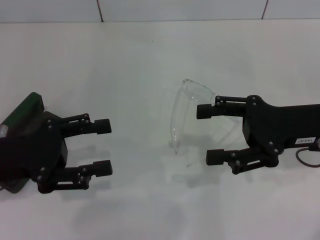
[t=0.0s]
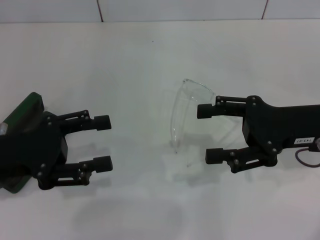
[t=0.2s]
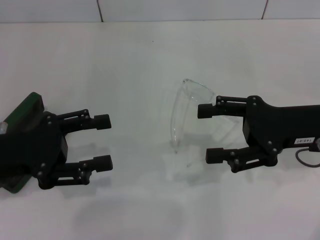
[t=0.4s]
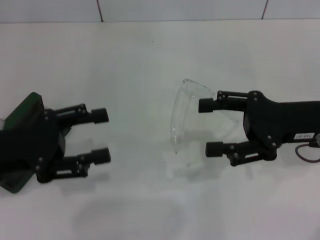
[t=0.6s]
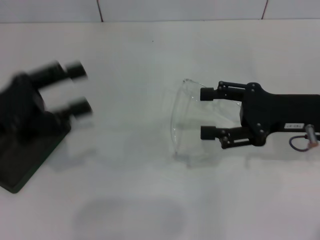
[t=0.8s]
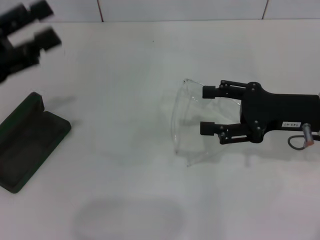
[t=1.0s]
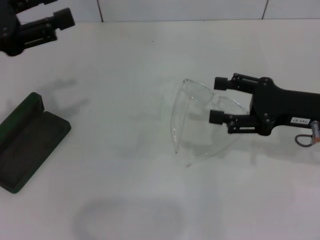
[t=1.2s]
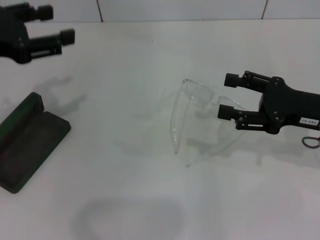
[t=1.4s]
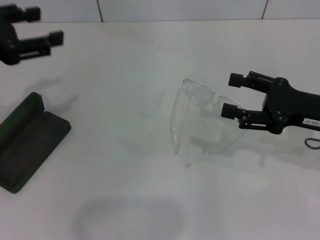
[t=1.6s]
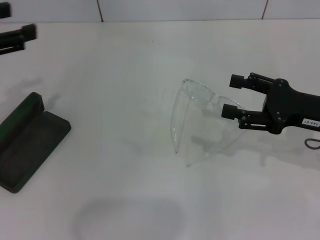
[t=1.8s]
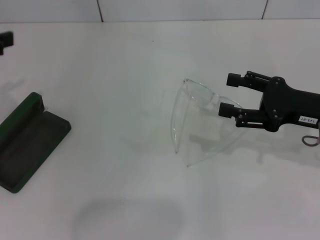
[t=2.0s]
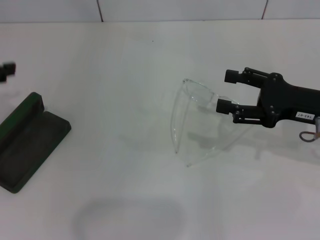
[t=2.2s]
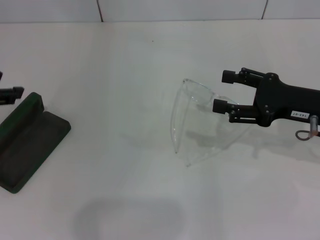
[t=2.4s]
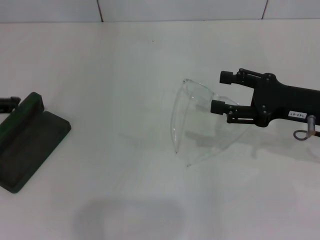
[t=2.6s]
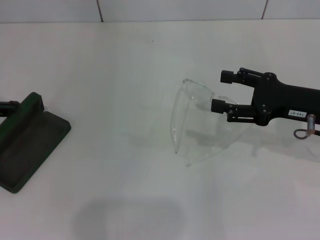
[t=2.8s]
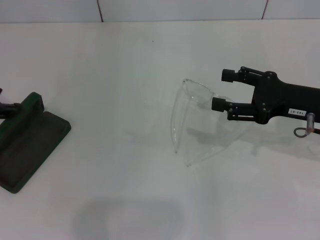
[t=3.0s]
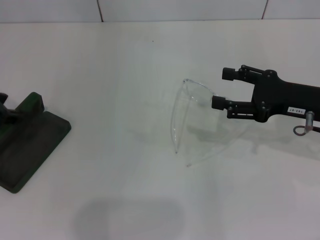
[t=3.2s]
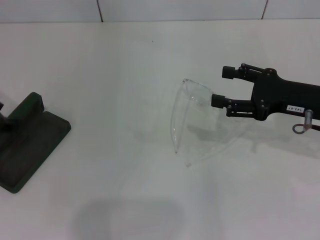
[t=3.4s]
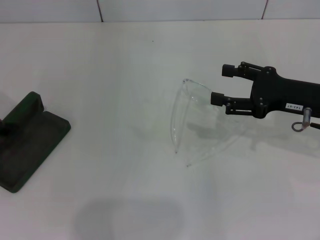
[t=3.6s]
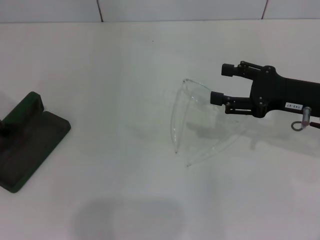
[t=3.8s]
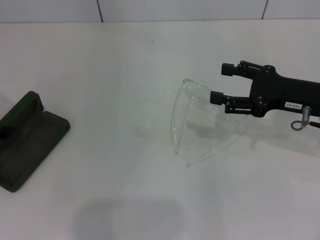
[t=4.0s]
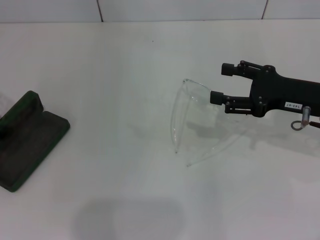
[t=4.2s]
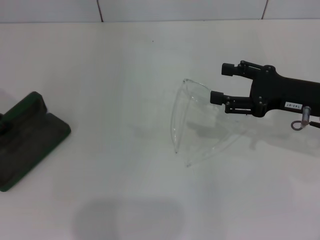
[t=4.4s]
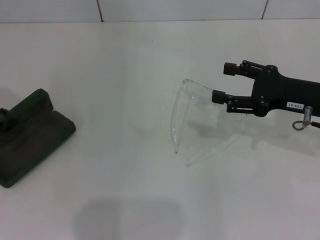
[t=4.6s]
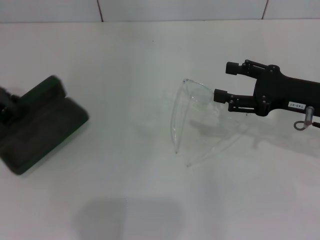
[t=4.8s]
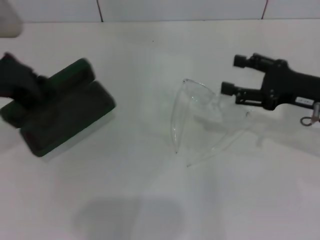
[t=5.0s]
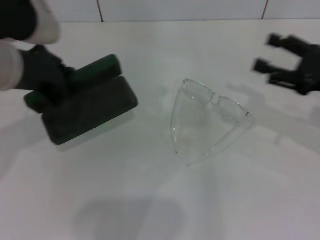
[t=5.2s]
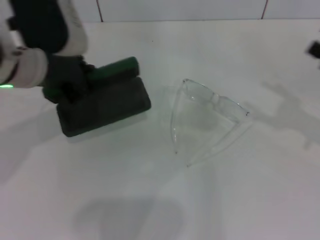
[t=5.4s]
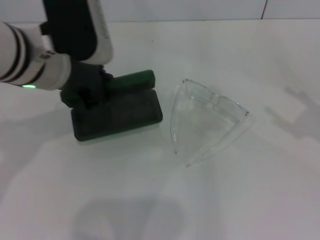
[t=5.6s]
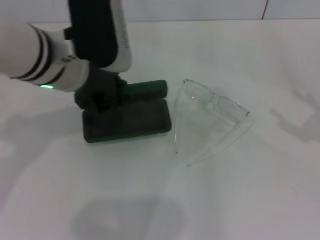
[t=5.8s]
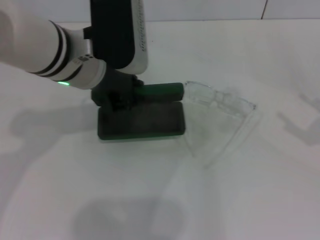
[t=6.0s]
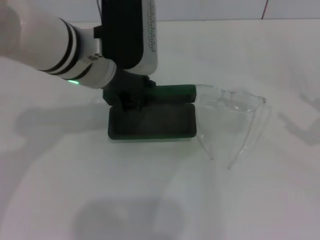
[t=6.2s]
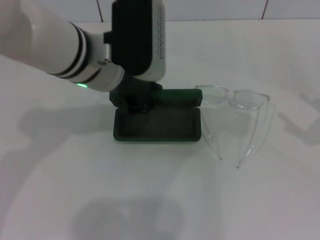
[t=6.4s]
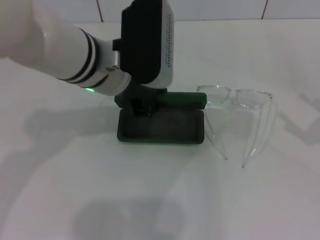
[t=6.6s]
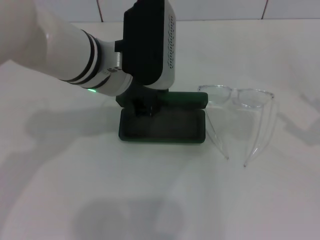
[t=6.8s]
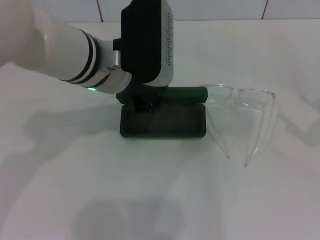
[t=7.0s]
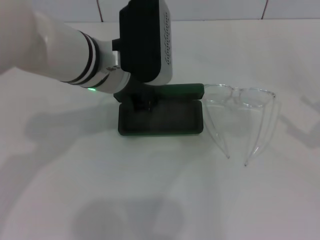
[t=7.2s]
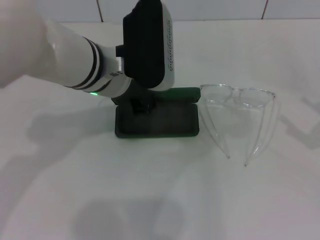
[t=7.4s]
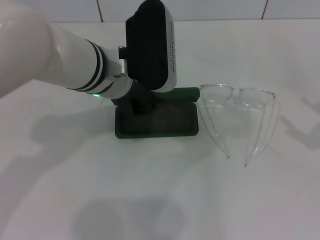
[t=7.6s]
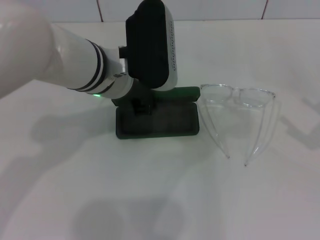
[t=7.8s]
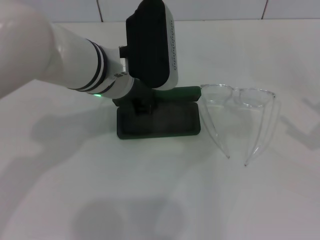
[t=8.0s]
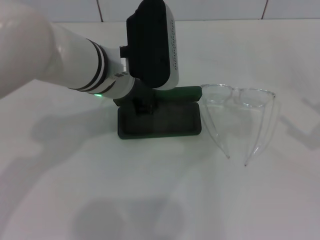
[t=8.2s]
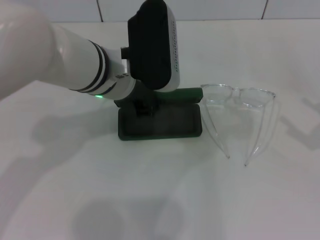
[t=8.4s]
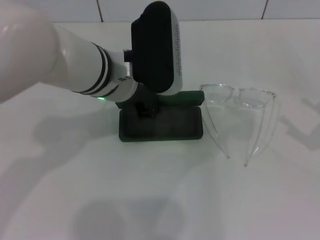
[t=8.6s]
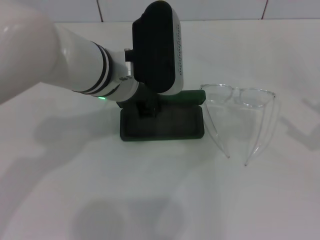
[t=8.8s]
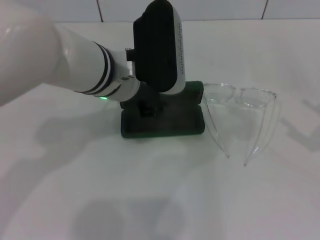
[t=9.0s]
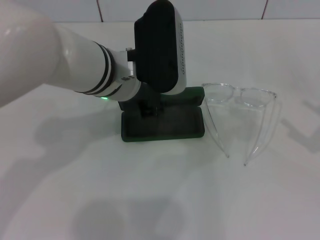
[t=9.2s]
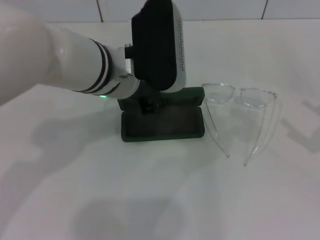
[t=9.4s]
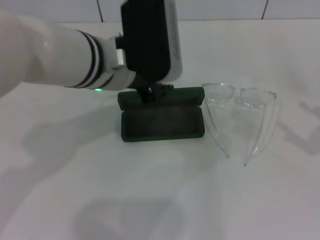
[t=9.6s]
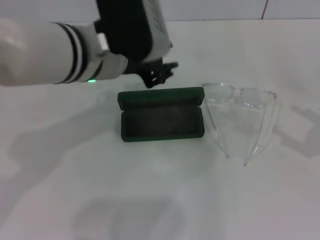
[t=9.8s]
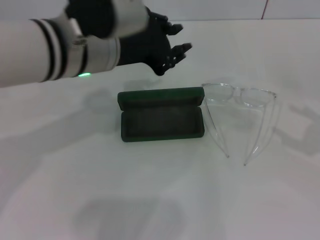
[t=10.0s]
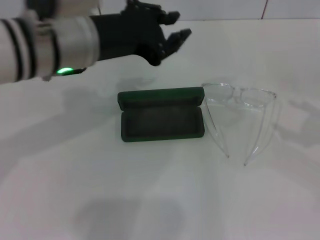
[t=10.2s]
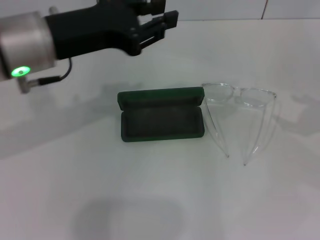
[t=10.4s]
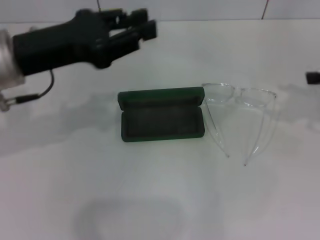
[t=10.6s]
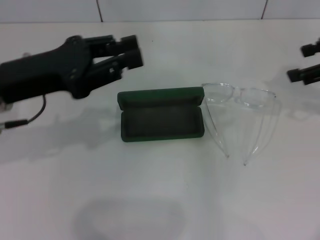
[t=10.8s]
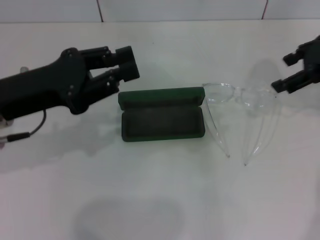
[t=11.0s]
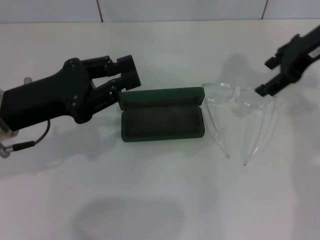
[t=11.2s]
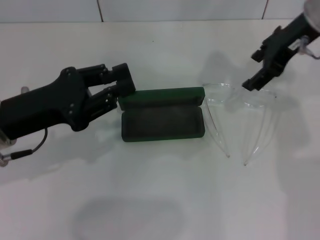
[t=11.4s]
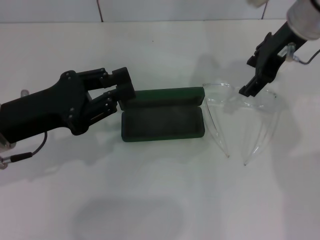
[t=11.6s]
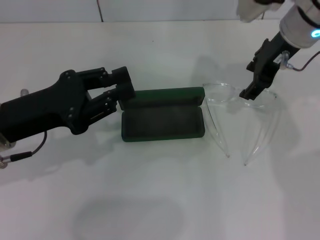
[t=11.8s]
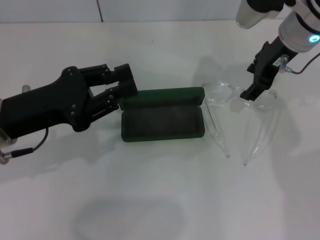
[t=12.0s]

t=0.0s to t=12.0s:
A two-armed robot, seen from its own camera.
Step, t=0.0s to t=4.2s: Grab the glasses case with your left hand.
Step, t=4.4s to t=9.2s: Place the glasses case in the center of the table with your left hand.
t=0.0s to t=1.6s: The left gripper shifts about 10 cm upward and forward.
t=3.0s to t=4.4s: The grippers move only a little.
t=4.4s to t=6.0s: The right gripper heads to the right and backward, covering approximately 15 cm; the left gripper goes about 15 cm to the right.
t=6.0s to t=7.6s: The grippers make only small movements.
t=7.6s to t=9.0s: Both grippers stay put.
t=9.0s to t=10.4s: The right gripper moves forward and upward, some 10 cm. Meanwhile the left gripper shifts about 10 cm to the left.
t=10.4s to t=12.0s: The left gripper is displaced downward and to the left by some 10 cm. The right gripper shifts about 25 cm to the left and forward.

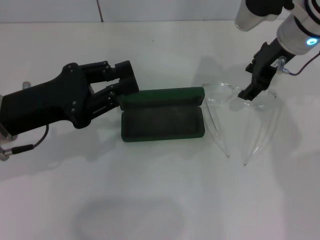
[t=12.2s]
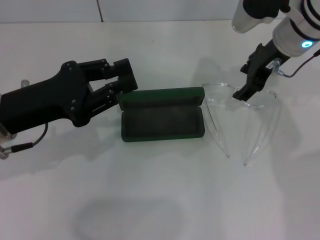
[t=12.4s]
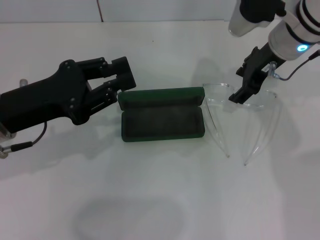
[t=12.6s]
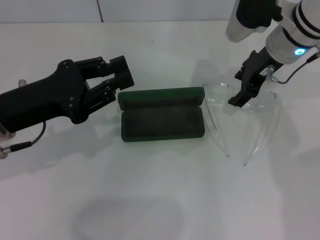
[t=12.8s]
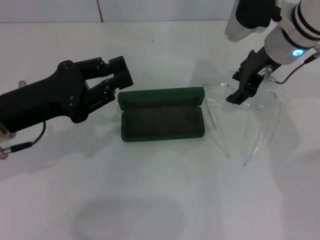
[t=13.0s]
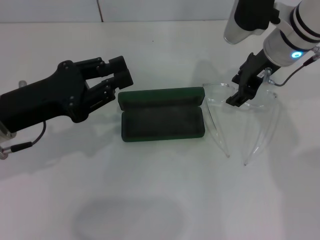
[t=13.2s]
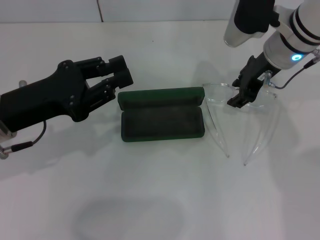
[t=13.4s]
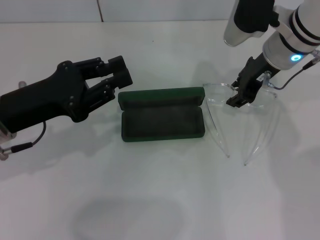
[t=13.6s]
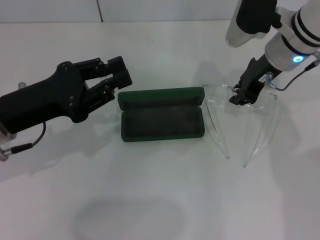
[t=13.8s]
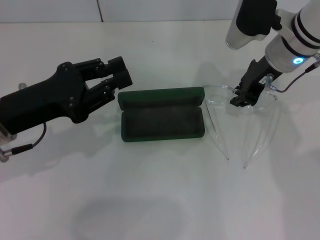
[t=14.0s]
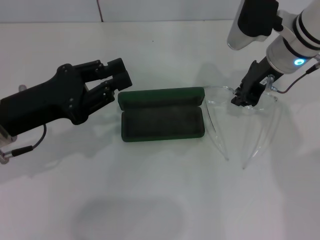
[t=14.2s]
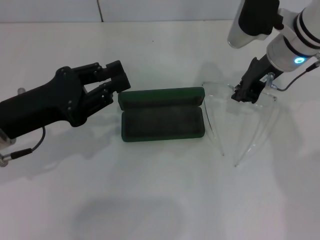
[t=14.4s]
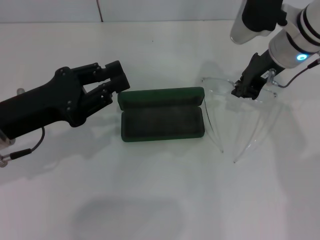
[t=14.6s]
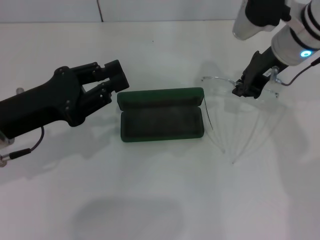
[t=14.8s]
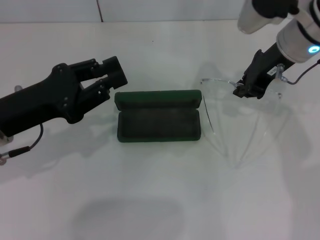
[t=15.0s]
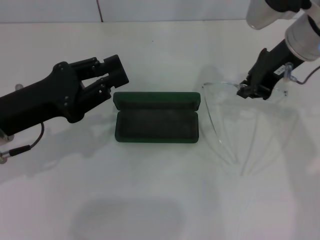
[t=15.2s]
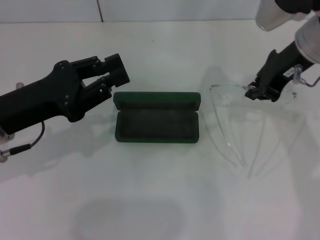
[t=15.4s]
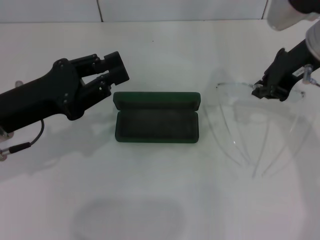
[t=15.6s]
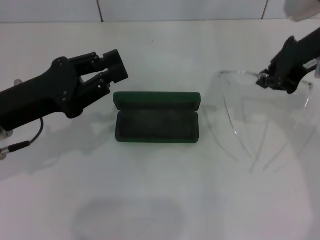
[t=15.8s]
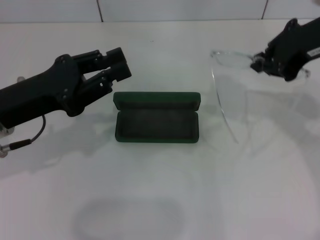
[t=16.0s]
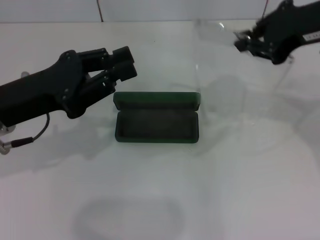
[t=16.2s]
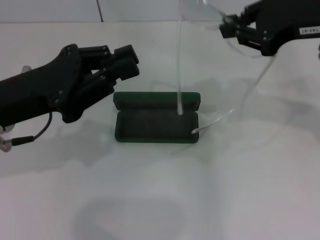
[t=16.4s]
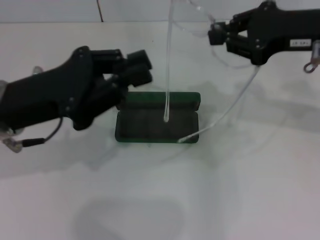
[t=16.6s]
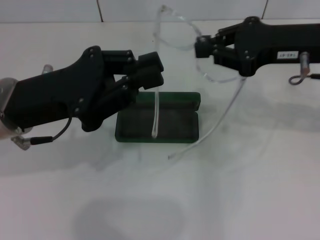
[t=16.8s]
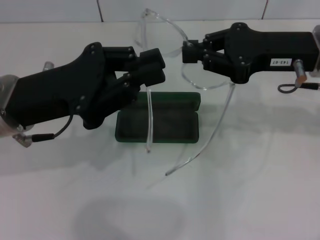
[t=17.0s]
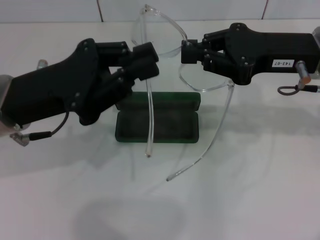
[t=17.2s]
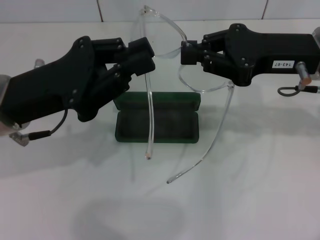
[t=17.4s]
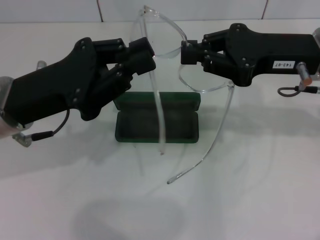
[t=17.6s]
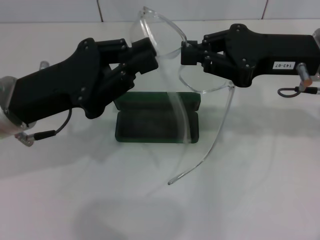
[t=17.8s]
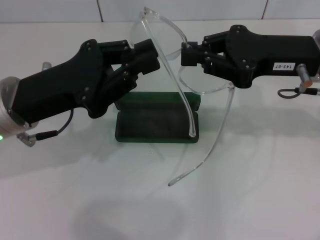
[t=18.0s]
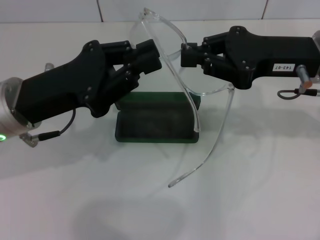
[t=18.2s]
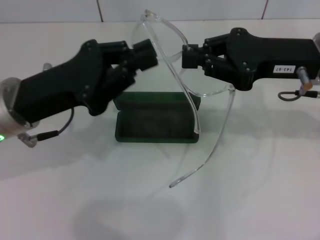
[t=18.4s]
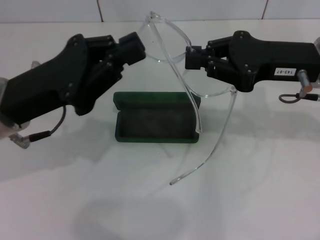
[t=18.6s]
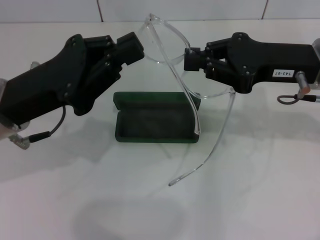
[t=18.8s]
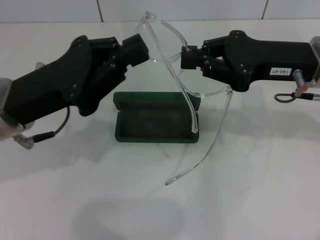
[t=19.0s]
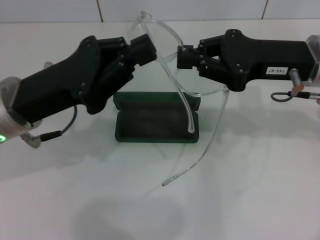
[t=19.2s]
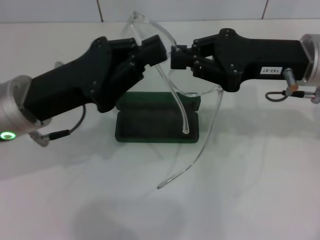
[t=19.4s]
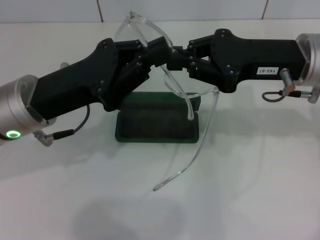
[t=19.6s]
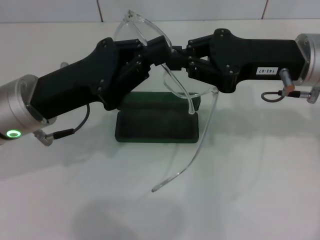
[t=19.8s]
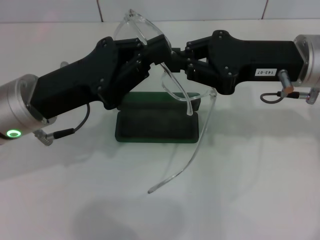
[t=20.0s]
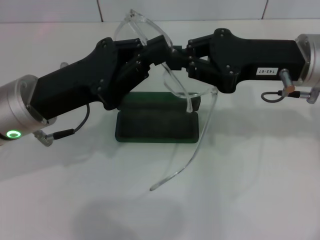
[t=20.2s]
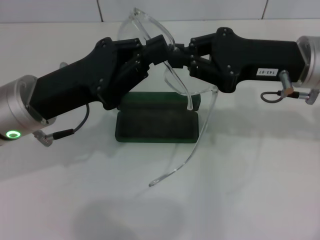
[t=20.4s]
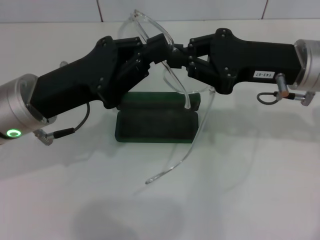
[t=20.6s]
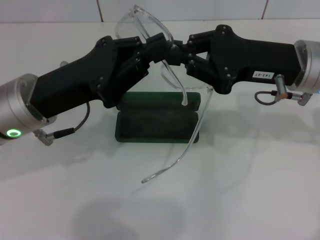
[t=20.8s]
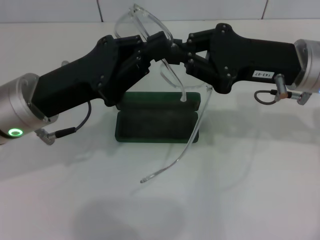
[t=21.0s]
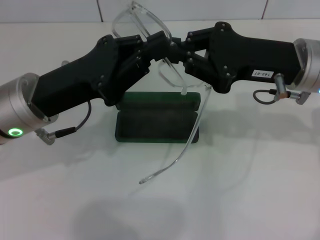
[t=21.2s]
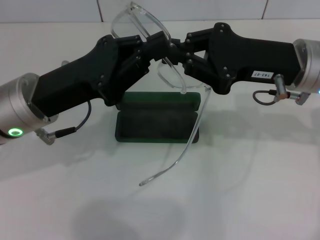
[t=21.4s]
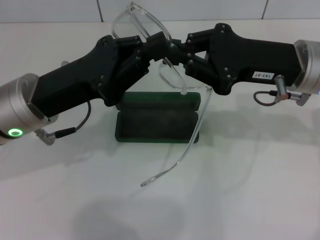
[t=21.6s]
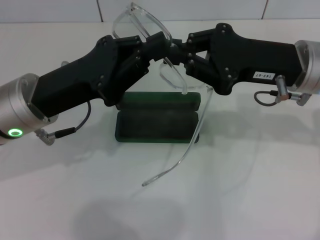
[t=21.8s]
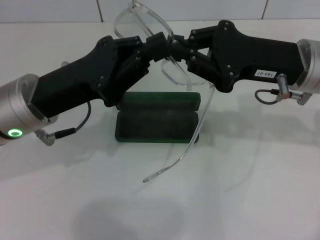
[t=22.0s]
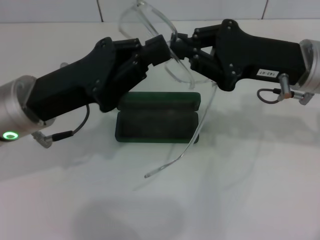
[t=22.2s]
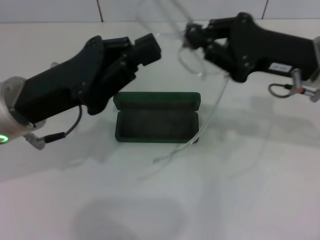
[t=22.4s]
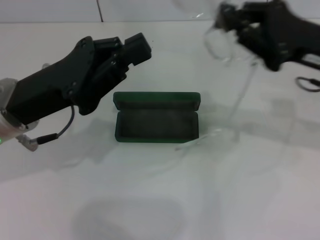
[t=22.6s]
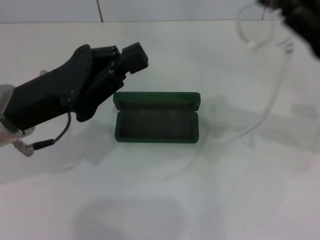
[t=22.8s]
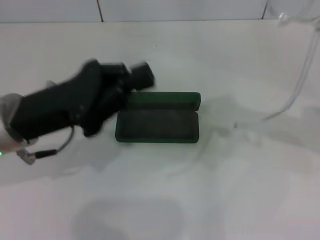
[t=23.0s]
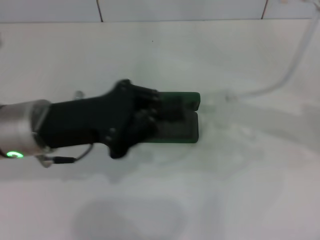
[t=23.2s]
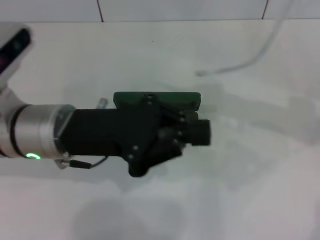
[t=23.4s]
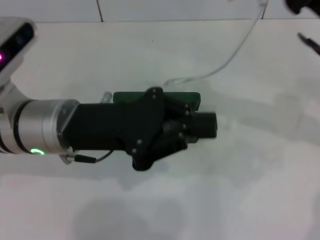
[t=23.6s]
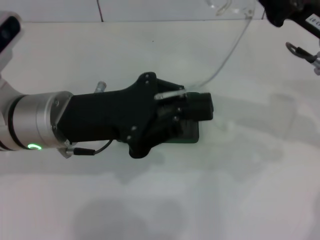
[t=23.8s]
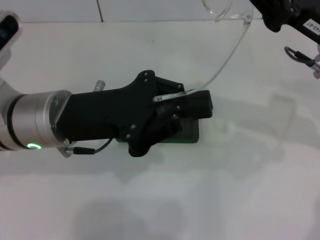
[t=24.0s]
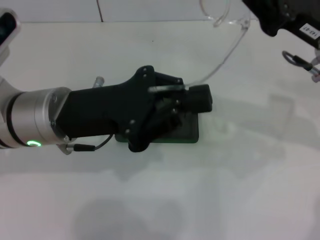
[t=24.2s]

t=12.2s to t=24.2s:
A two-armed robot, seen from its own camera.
t=12.2s to t=13.8s: The right gripper closes.
t=13.8s to t=15.2s: The right gripper moves roughly 5 cm, and closes up.
t=15.2s to t=16.6s: The right gripper travels backward by approximately 5 cm.
t=18.2s to t=21.2s: There are only small adjustments of the grippers.
t=21.2s to t=22.6s: The right gripper shifts approximately 5 cm to the right.
